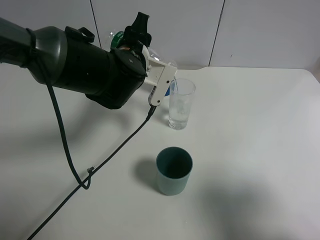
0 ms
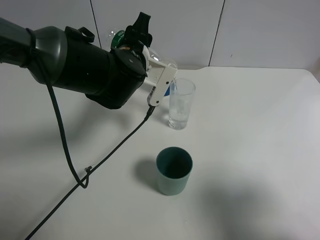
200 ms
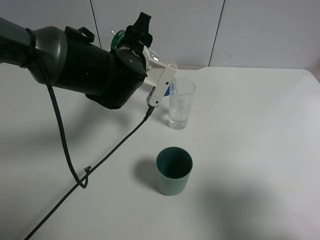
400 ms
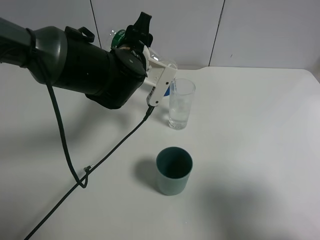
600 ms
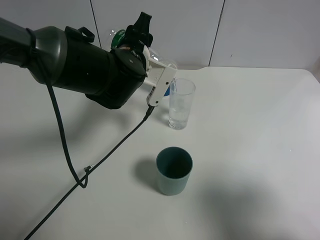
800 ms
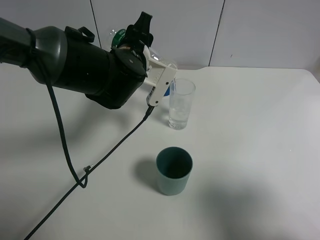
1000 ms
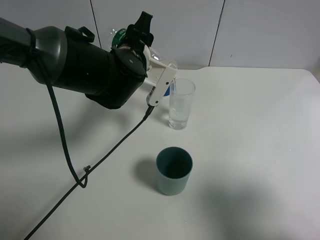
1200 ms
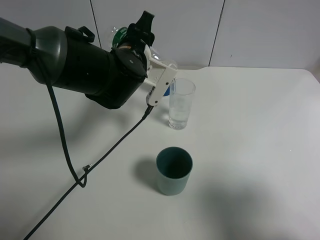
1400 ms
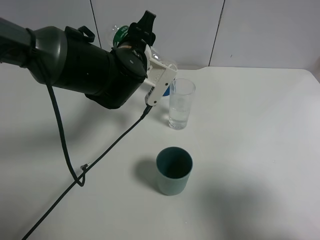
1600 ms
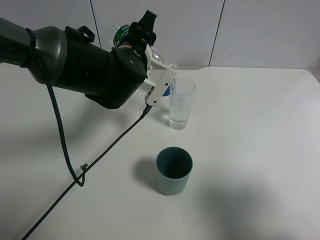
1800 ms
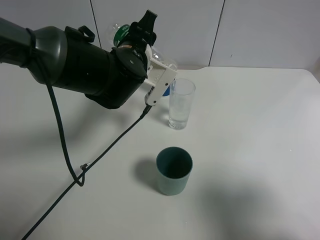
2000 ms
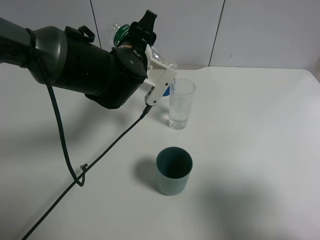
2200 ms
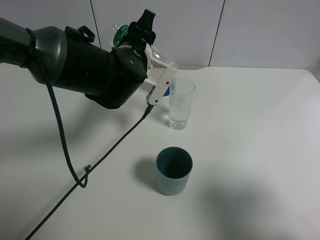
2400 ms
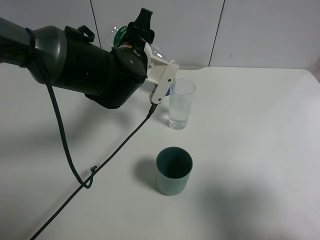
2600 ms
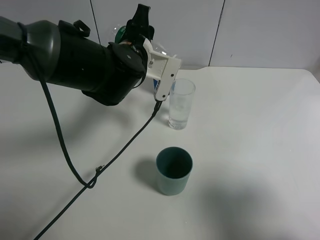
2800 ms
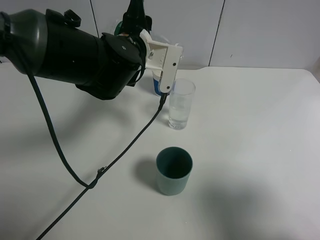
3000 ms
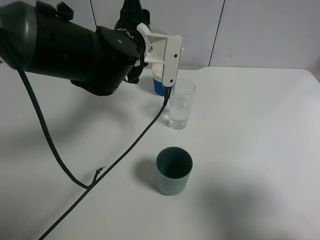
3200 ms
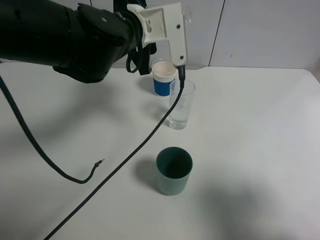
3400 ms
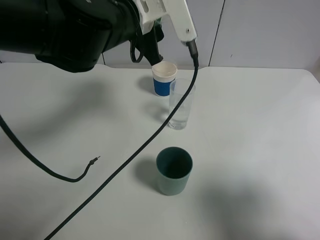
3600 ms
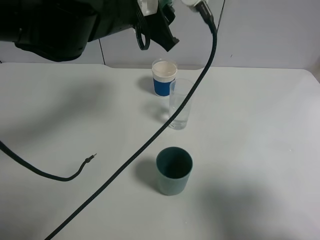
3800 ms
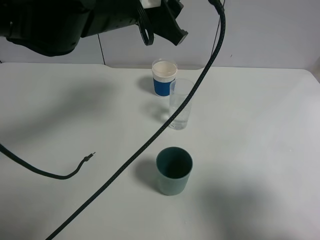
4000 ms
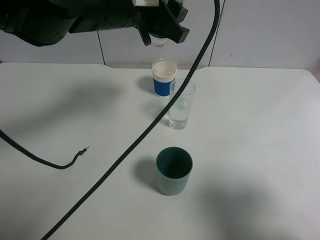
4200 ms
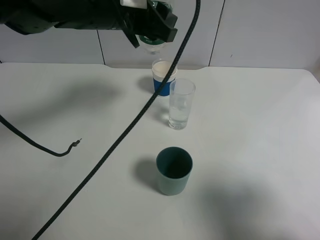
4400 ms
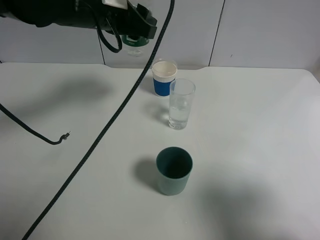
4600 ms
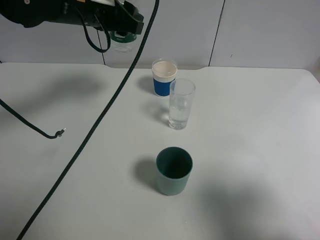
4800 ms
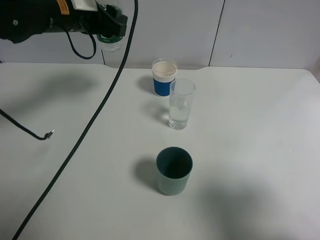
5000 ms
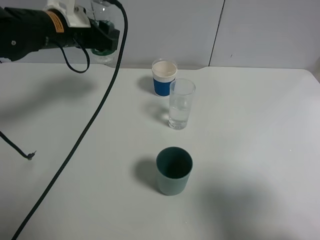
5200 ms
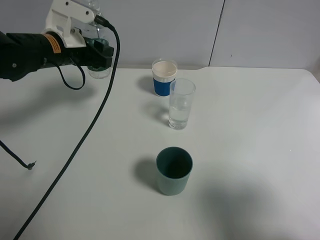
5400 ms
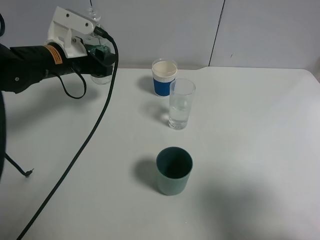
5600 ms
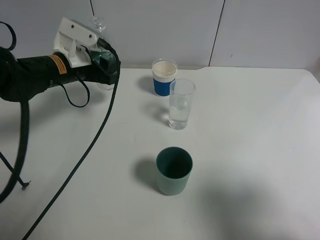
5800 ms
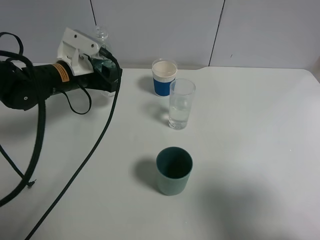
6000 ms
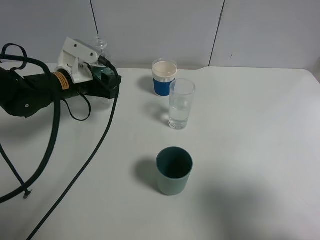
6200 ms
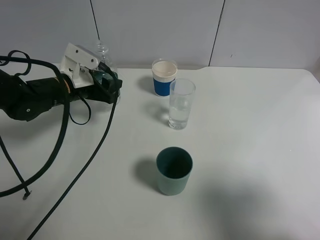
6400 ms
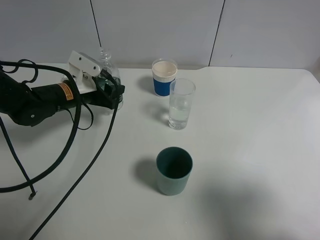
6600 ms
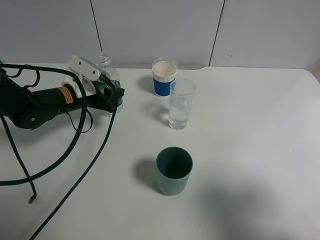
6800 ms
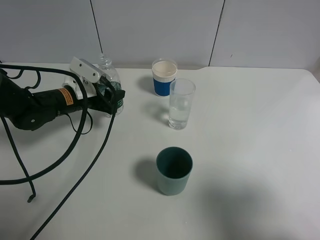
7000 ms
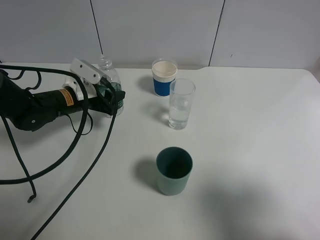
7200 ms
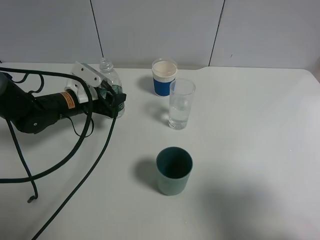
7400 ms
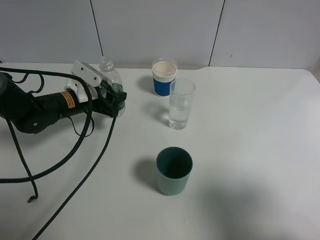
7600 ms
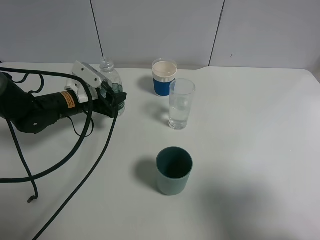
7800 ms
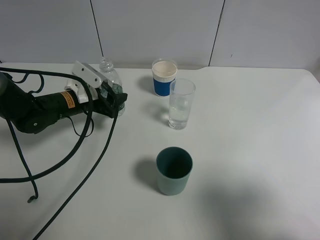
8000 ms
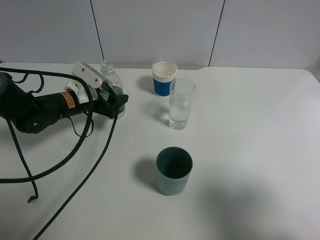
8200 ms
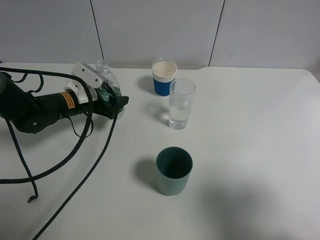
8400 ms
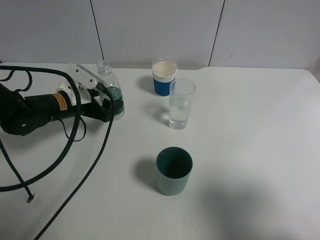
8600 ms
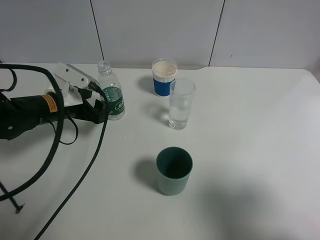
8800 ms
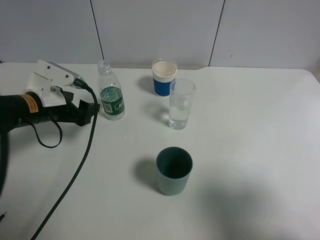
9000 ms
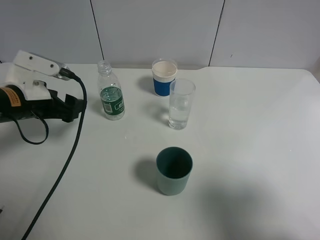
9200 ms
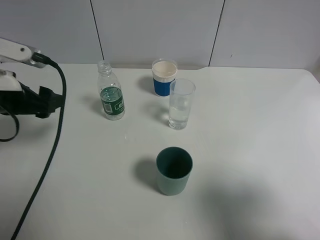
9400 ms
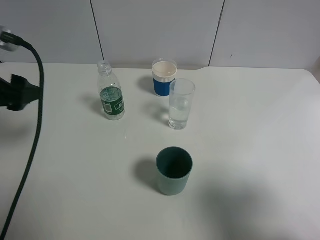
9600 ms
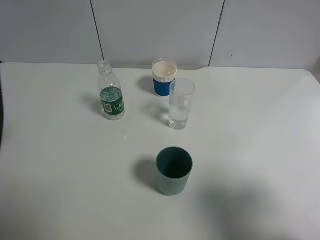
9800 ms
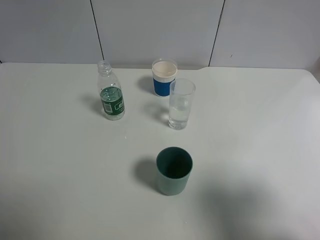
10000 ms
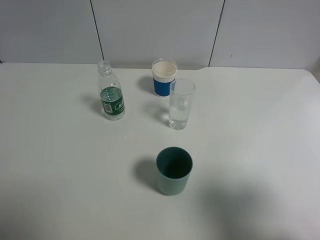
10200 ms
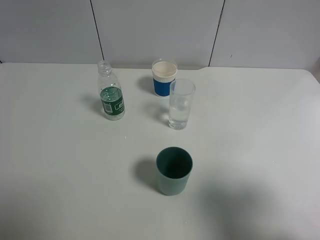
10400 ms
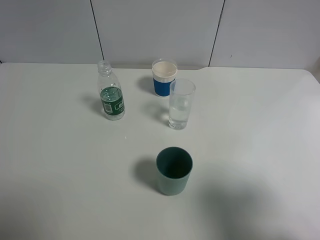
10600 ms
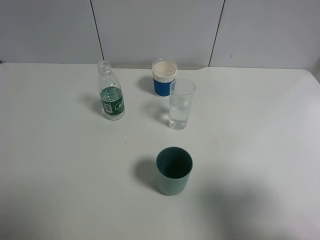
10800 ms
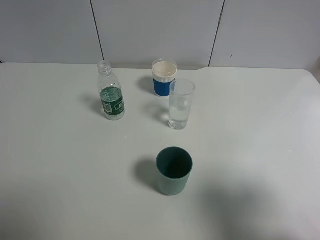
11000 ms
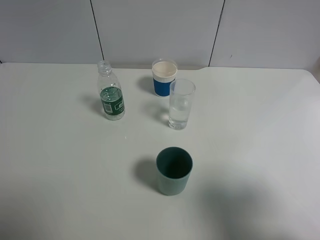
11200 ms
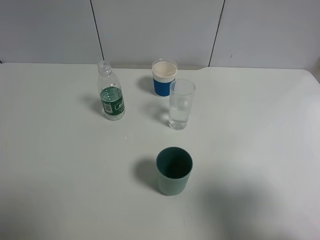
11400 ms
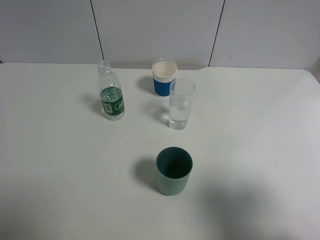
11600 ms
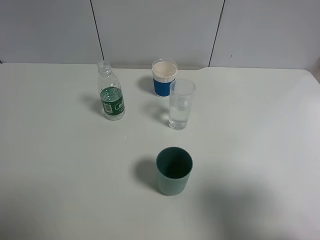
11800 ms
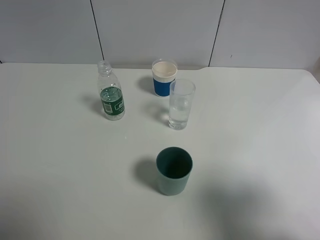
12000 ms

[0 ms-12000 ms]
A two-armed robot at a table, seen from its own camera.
Task of the whole recording: use a gripper to hold the bottle of the drink and pour it into a random cup.
Step, 0 ms to 2800 ms: Pour the mineral water into the glass with the left gripper.
Step, 3000 ms to 8600 ms: Place the mineral water bottle on the table with the left gripper.
0 ms to 1600 ms: The grippers stay close to where they were, moving slightly.
3000 ms to 4400 ms: The left gripper is displaced upward by approximately 5 cm.
4400 ms to 6000 ms: The left gripper shifts roughly 20 cm downward and to the left.
6000 ms to 7600 ms: The left gripper travels downward by approximately 5 cm.
7600 ms to 9000 ms: The left gripper heads backward and upward, covering roughly 10 cm, and opens its fingers.
9000 ms to 10400 ms: The left gripper shifts roughly 30 cm upward, backward and to the left.

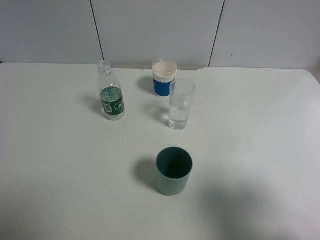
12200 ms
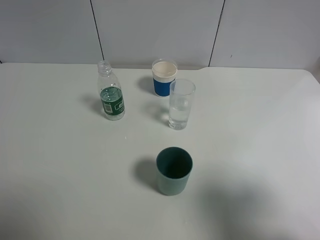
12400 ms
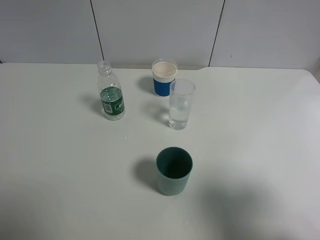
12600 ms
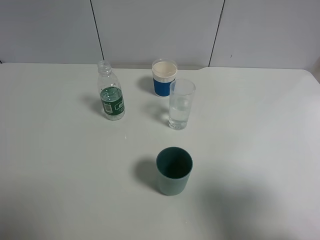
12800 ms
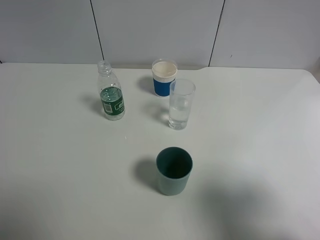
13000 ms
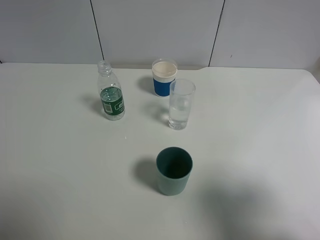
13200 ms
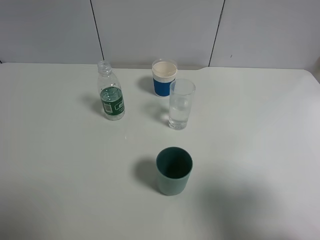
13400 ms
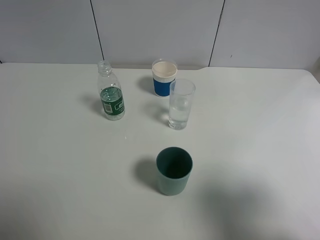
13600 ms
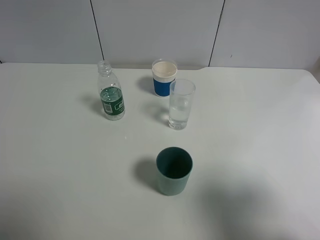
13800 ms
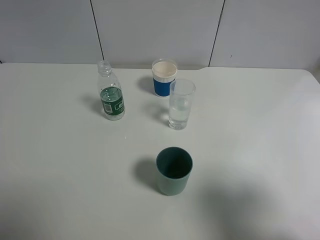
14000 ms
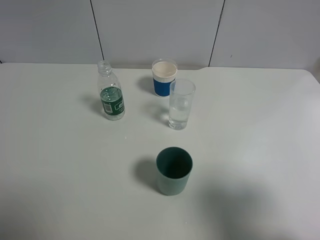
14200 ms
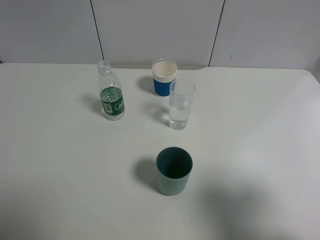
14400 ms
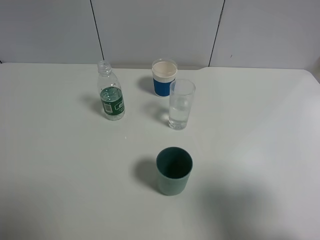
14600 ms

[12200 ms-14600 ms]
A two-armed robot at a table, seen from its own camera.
Task of the whole recording: use a gripper to hold the bottle of the drink and pour it into a random cup.
12200 ms to 14600 ms: Neither gripper changes place.

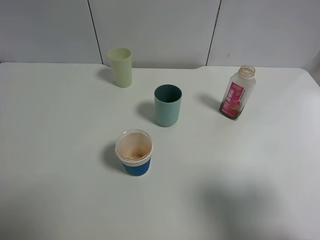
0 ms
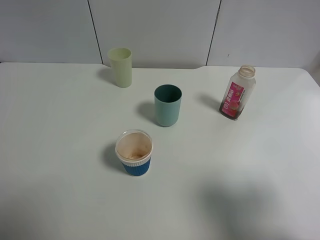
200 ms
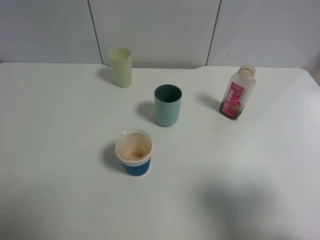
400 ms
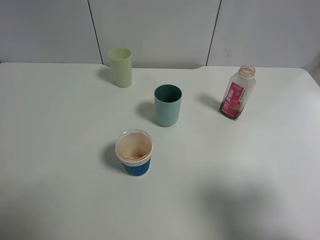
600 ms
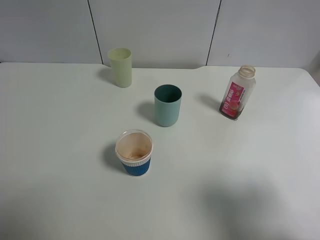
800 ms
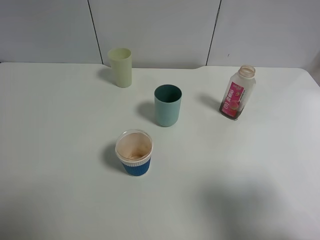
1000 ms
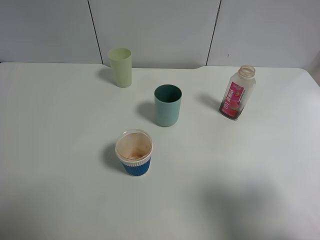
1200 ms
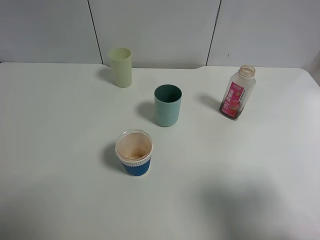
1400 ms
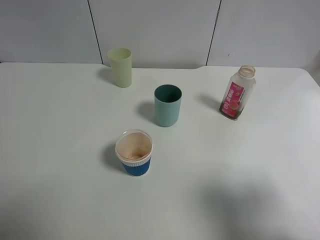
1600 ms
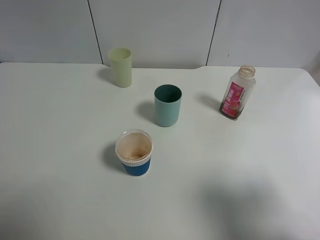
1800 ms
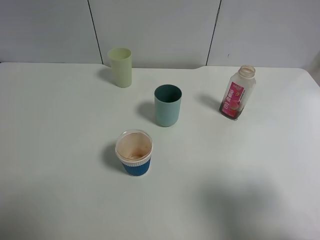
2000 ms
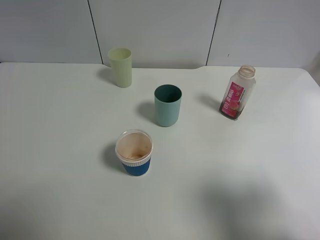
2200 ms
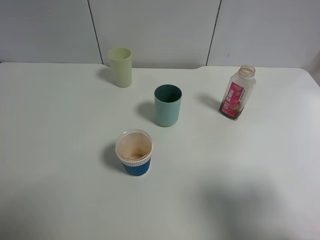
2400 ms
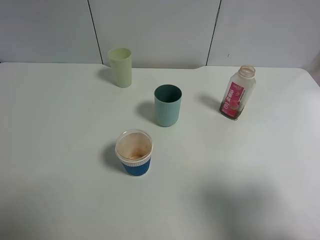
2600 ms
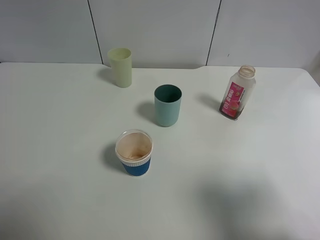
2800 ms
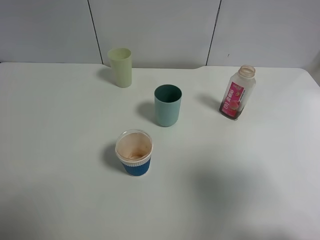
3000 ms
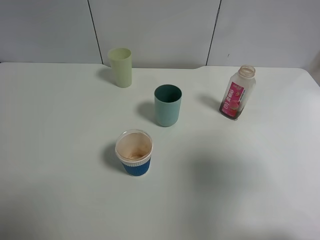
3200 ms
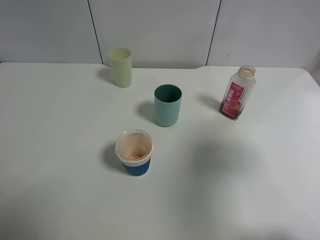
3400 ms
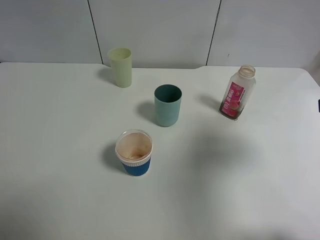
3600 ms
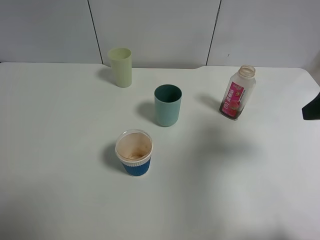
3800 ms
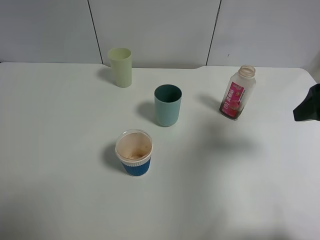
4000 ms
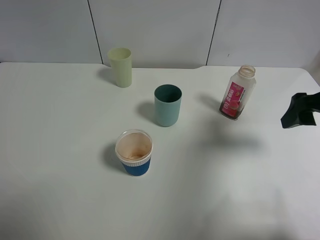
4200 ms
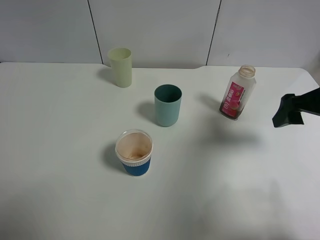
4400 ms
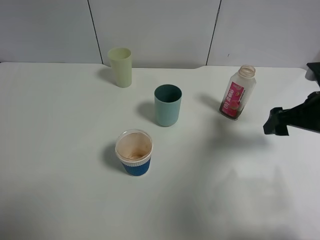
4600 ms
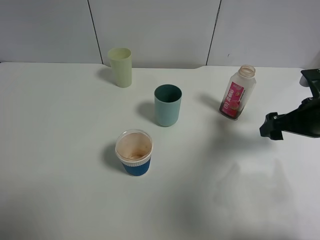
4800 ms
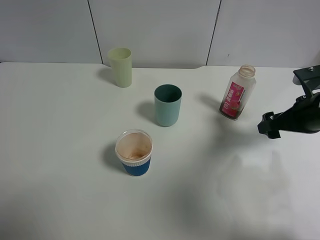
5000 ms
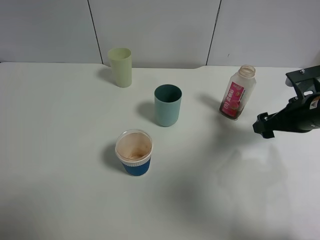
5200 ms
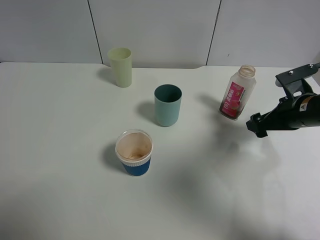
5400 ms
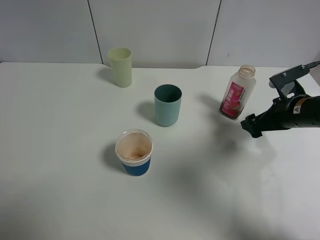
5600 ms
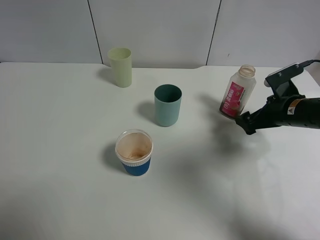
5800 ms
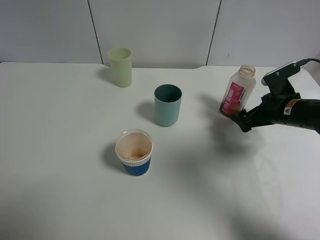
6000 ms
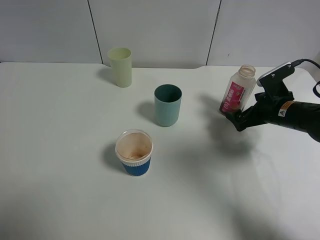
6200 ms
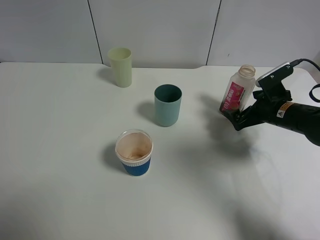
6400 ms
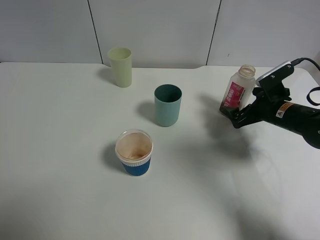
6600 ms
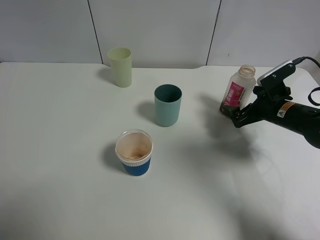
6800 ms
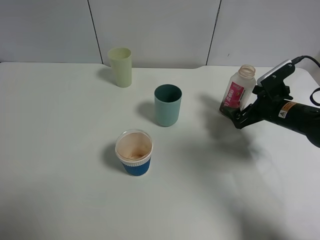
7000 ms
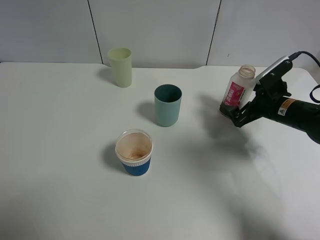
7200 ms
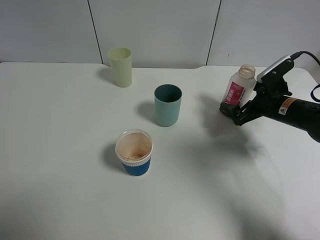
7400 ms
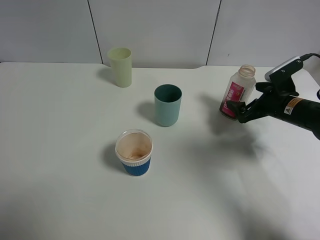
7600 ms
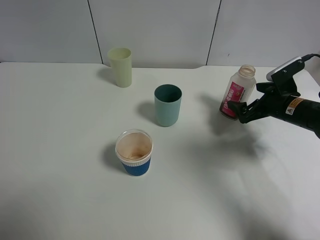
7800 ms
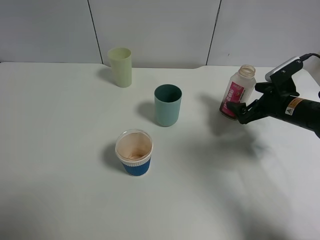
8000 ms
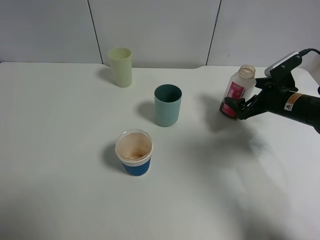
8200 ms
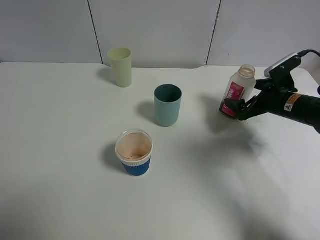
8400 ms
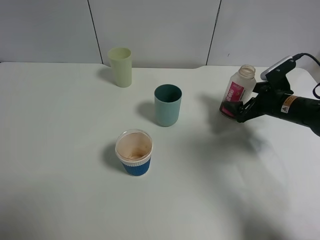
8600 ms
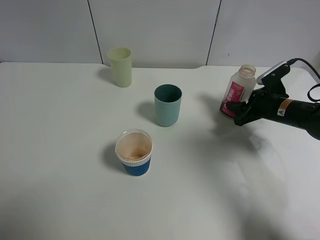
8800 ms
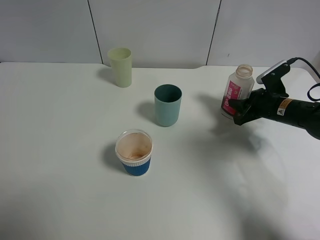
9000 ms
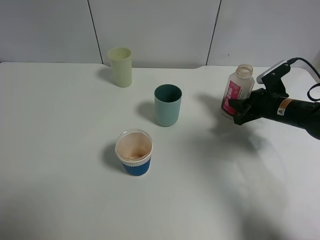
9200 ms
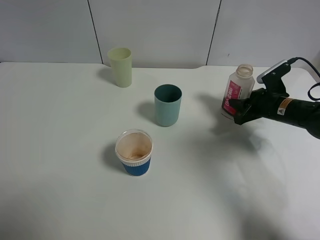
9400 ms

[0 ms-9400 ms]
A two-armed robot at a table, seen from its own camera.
Task of the whole recording: use a gripper to hold the bottle of the drink and pour it into a random cup.
Step, 0 ms to 9400 ms: Grasp the cranberry juice bottle with the right gripper.
0 ms to 1600 ms: Both grippers stay about where they are.
1600 ms to 3200 ms: The right gripper travels forward by about 5 cm.
3200 ms to 4800 ms: The right gripper shifts roughly 20 cm forward and downward.
4800 ms to 6200 ms: The right gripper heads downward and forward, covering approximately 10 cm.
6200 ms to 7800 ms: The grippers move only a little.
7800 ms to 9400 ms: The right gripper closes.
